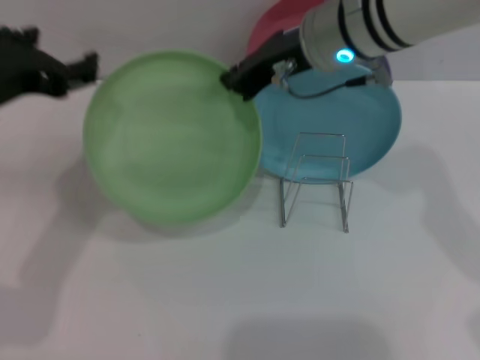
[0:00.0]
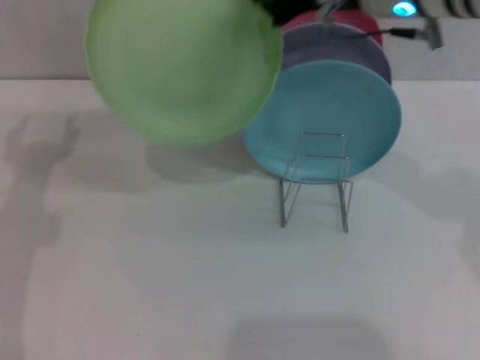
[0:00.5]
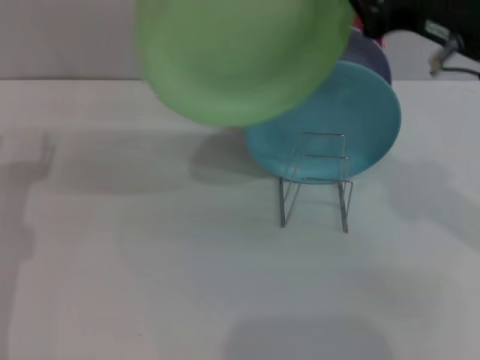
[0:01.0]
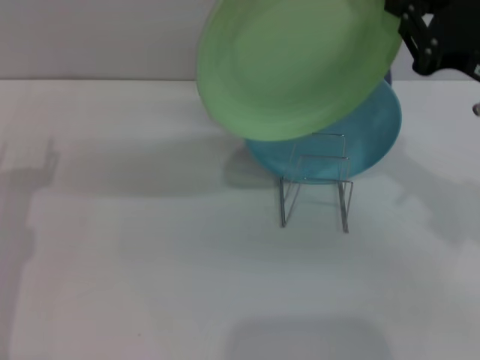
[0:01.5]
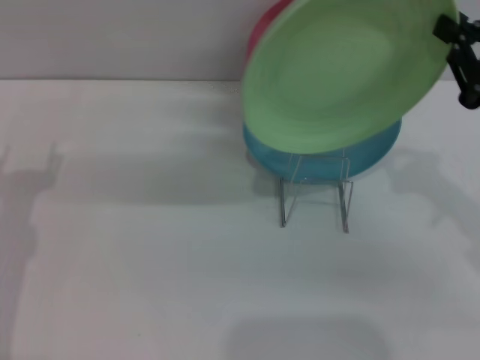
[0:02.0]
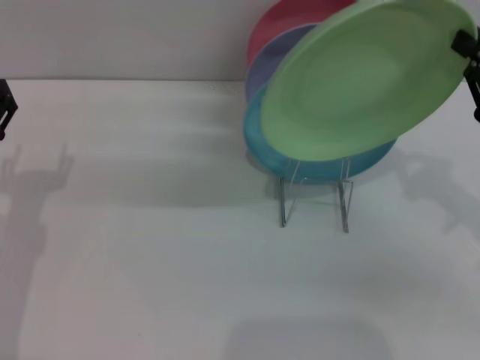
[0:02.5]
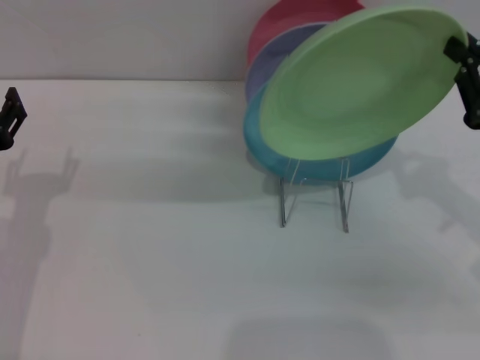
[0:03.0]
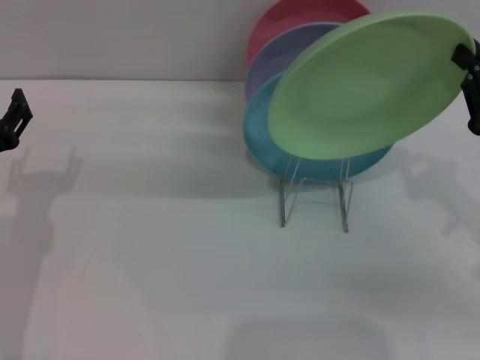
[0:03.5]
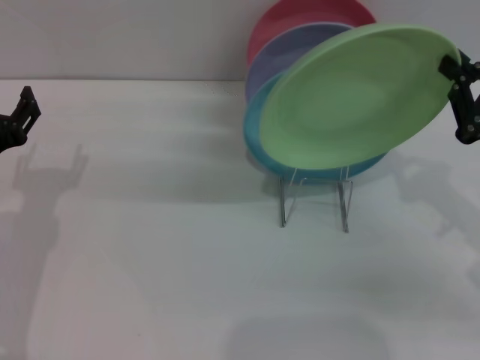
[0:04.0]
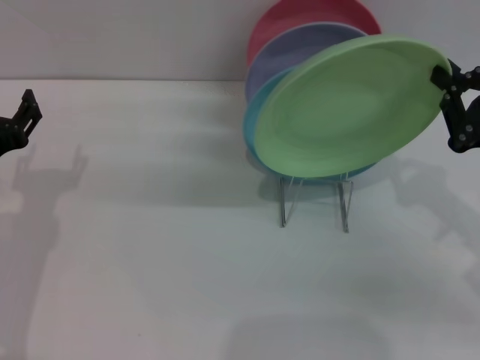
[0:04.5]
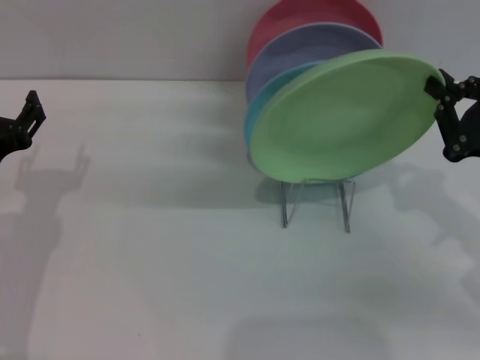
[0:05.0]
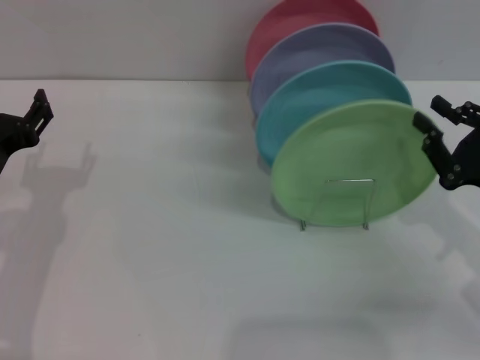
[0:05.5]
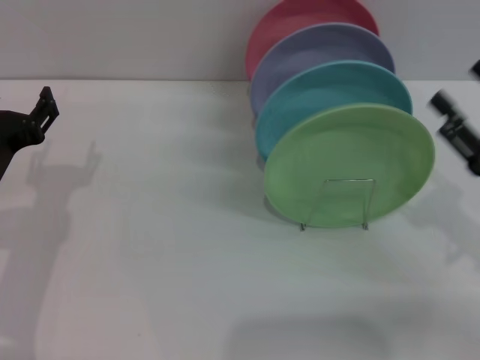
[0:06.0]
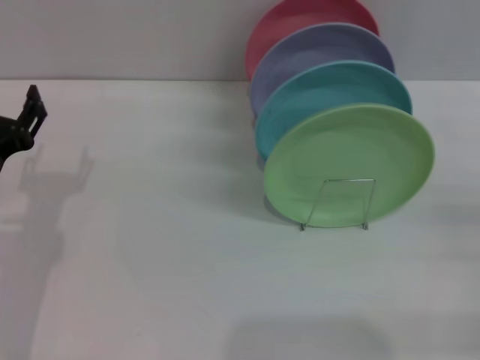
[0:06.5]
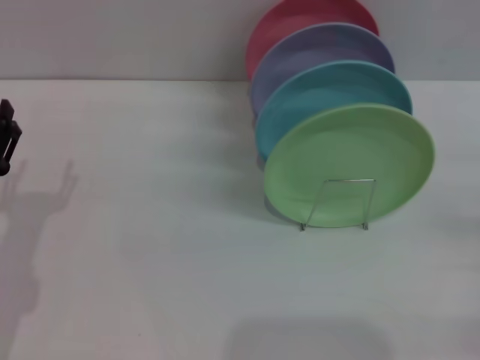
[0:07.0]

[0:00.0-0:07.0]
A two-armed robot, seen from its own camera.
Task of the whole recording: Grip the plate with one hand, pass it to the other, then set it on the shelf.
Step, 0:00.5 to 0:05.5: Place the plate on the shelf with the right gripper.
0:00.0 to 0:02.0: The left gripper moves downward and to the left, about 15 cm, while the right gripper shifts about 25 cm to the right and backward.
0:02.0 to 0:05.0: There are only small adjustments of the grippers.
0:05.0 to 0:07.0: The left gripper ends up some 5 cm from where it was. The right gripper goes roughly 10 cm to the right, backward and downward, and opens.

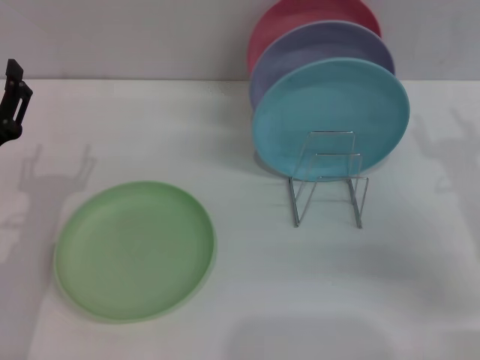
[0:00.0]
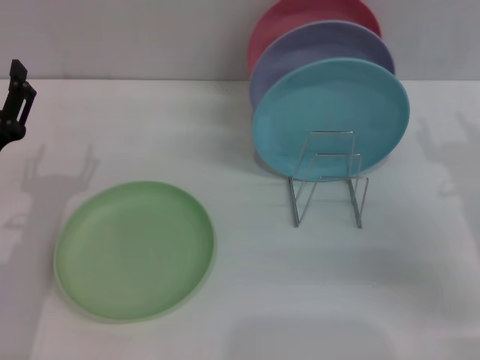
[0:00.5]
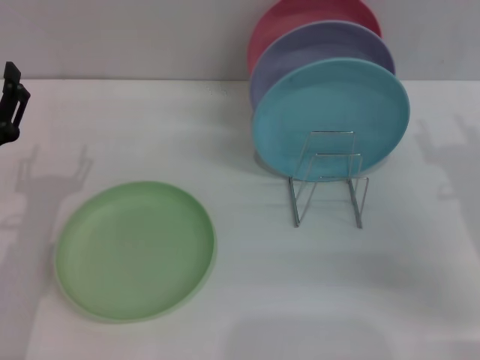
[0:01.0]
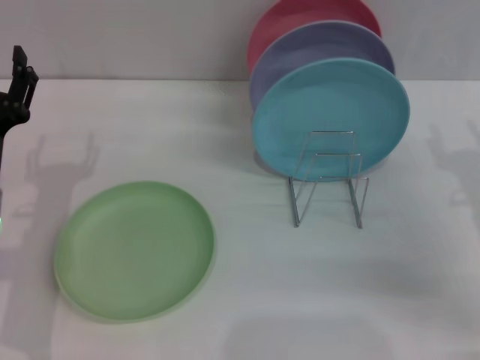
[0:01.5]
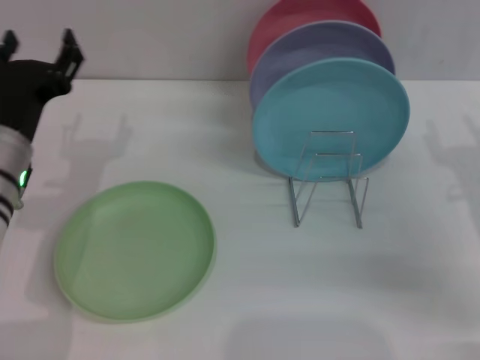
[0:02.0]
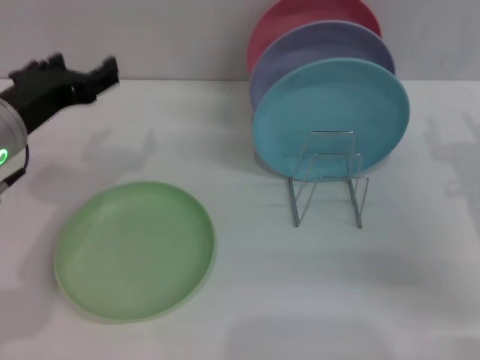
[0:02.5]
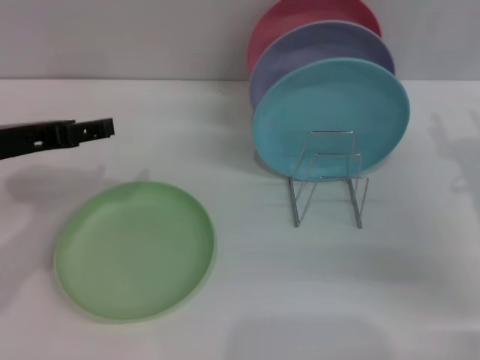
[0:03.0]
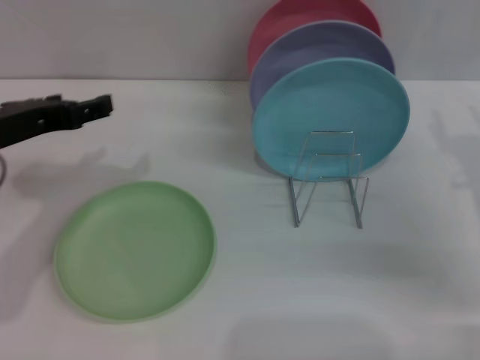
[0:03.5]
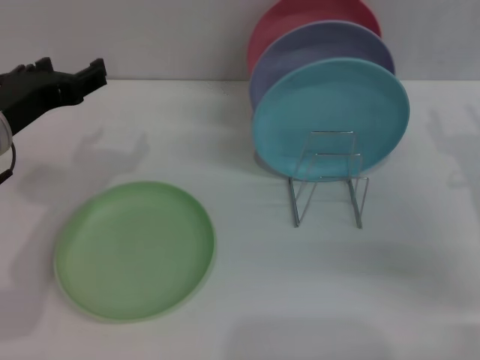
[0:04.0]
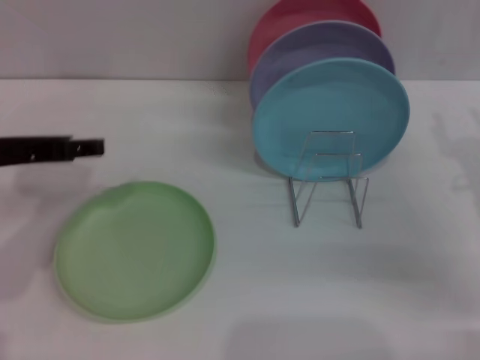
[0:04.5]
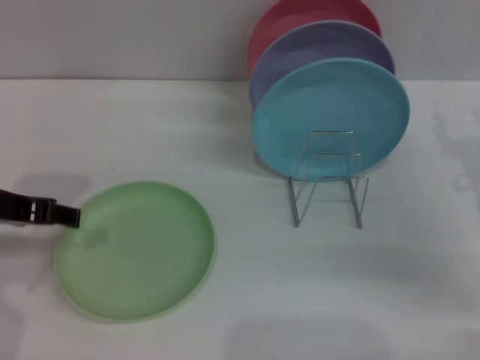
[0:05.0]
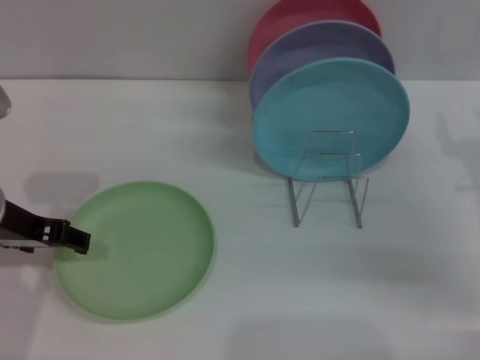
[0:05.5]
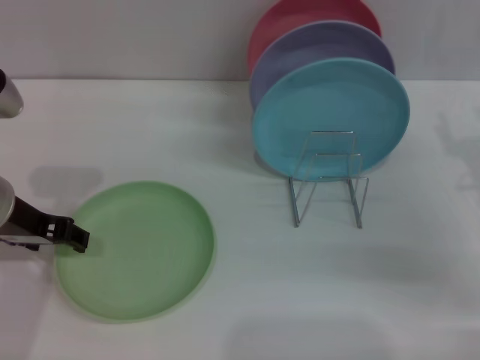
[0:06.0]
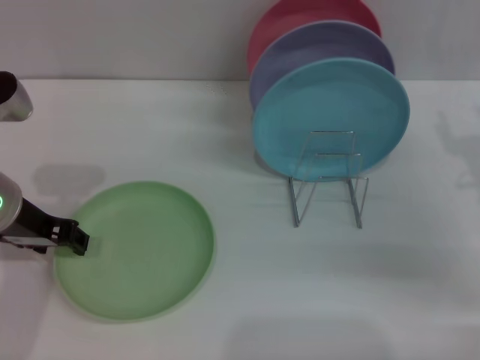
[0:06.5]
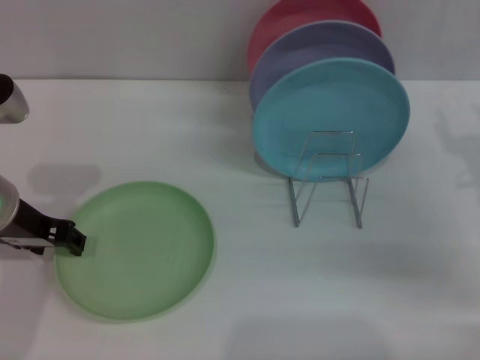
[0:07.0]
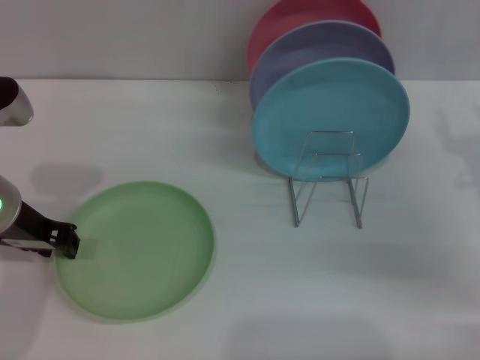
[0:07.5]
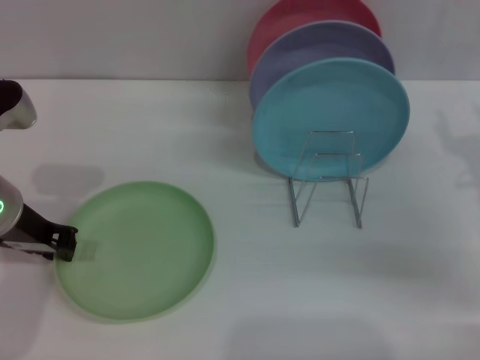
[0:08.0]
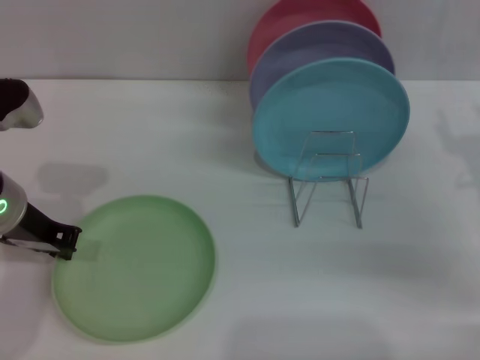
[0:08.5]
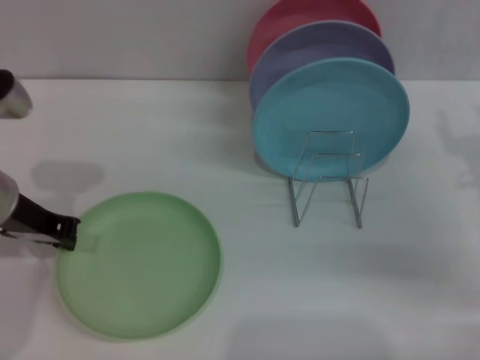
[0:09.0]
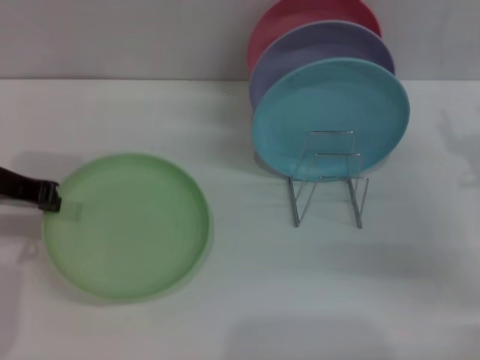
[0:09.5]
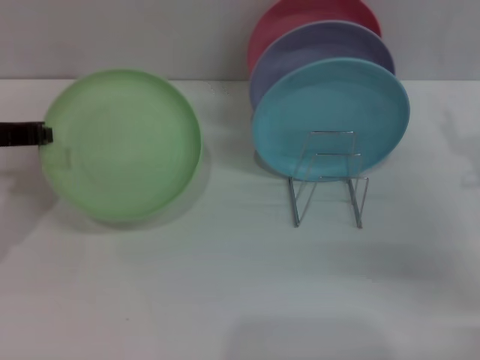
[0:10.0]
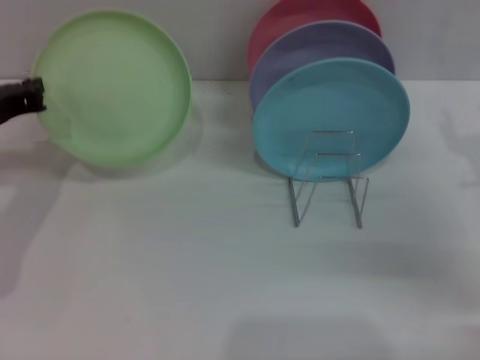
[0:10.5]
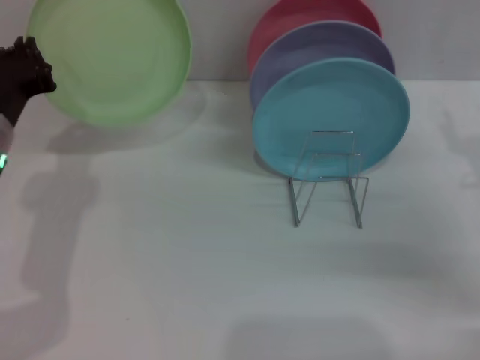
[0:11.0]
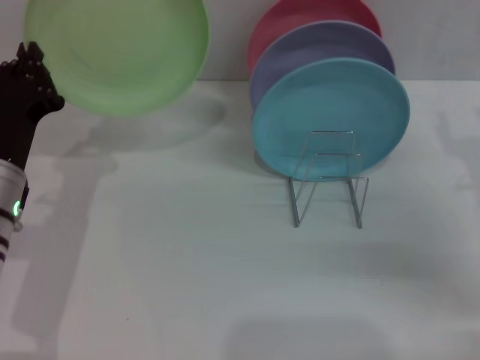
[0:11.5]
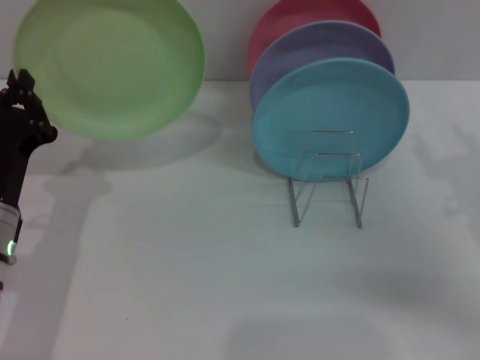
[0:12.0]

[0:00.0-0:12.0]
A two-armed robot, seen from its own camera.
Task of the whole recording: Grip the plate with one hand, pass it to the other, then set it on the shelf.
Step, 0:00.0 to 0:10.0: Pick up the plate with the left gripper.
0:00.0 to 0:02.0: The left gripper moves roughly 5 cm.
0:02.0 to 0:04.0: The left gripper is displaced upward by some 5 cm.
0:06.0 to 0:08.0: The left gripper closes its fingers.
0:08.0 to 0:10.0: The left gripper is displaced to the left by roughly 5 cm.
0:10.0 to 0:12.0: The left gripper shifts some 15 cm downward, backward and to the right.

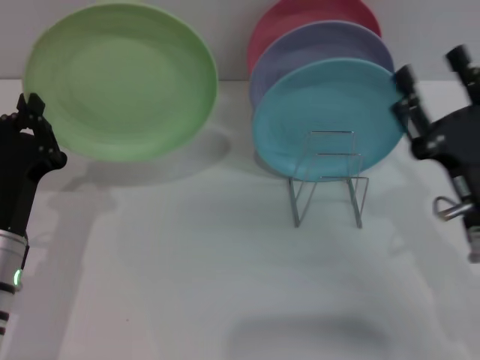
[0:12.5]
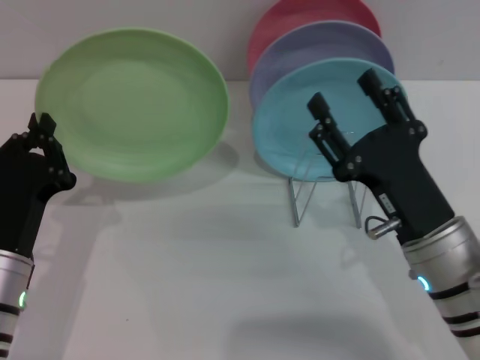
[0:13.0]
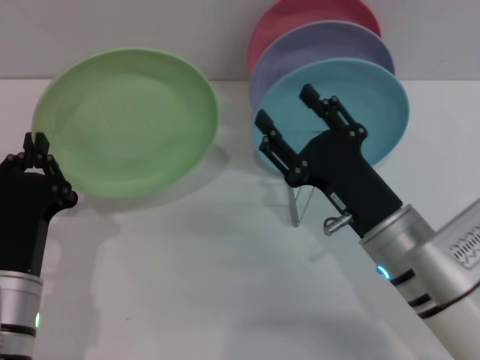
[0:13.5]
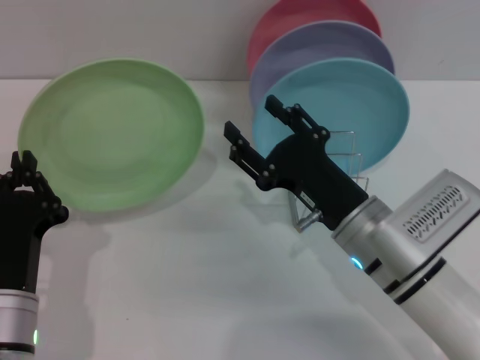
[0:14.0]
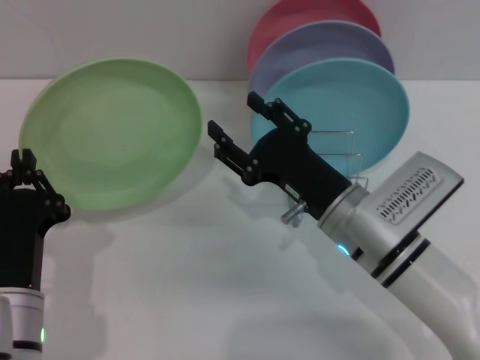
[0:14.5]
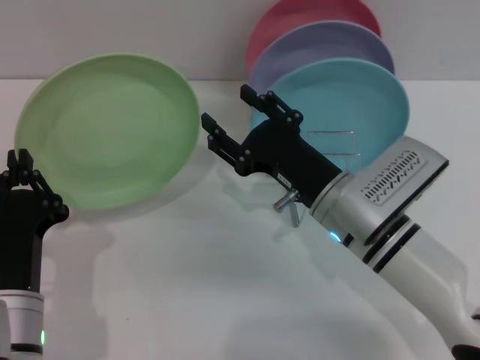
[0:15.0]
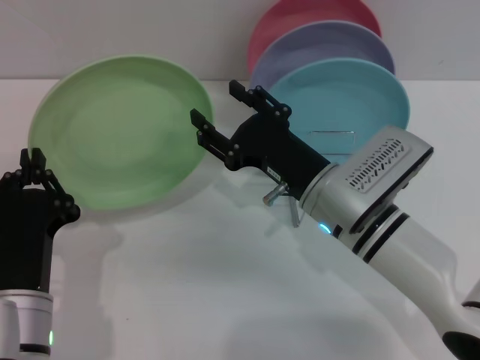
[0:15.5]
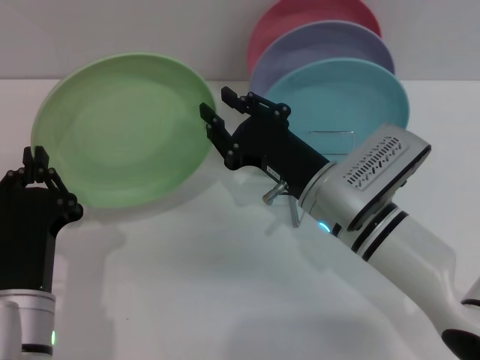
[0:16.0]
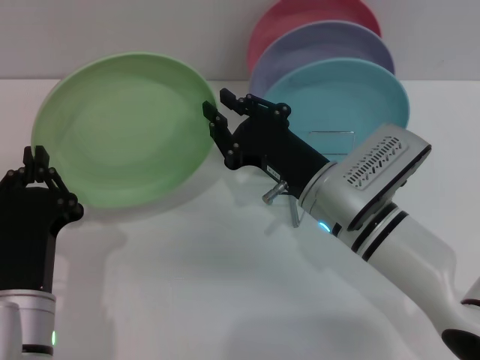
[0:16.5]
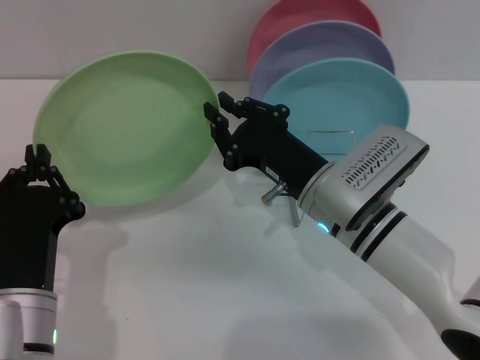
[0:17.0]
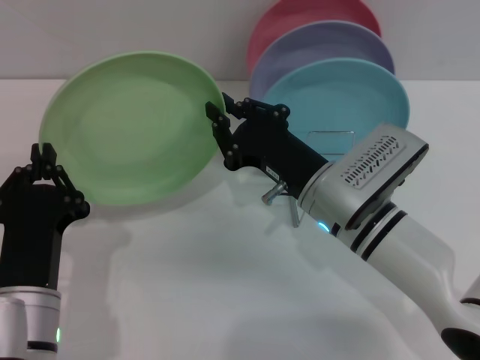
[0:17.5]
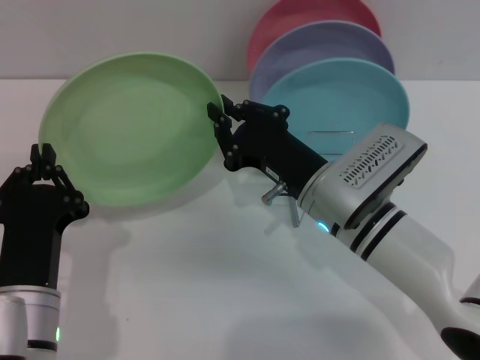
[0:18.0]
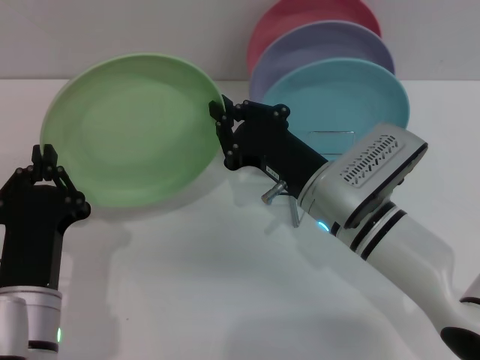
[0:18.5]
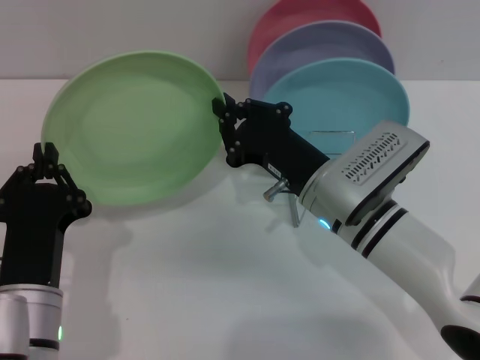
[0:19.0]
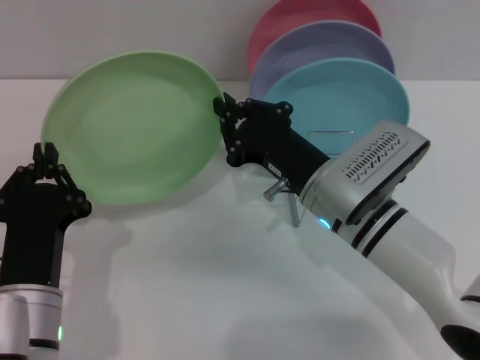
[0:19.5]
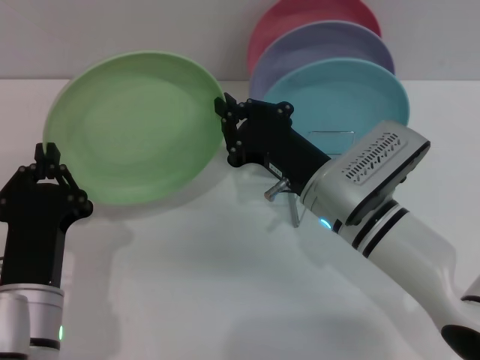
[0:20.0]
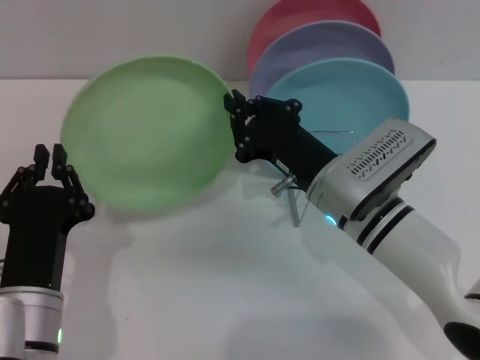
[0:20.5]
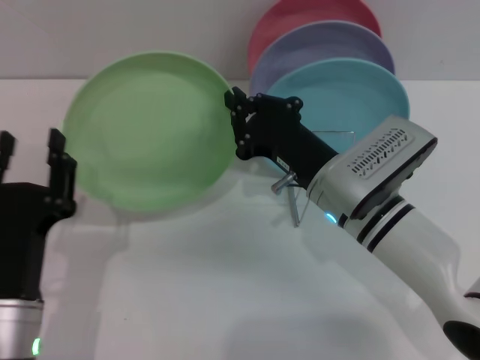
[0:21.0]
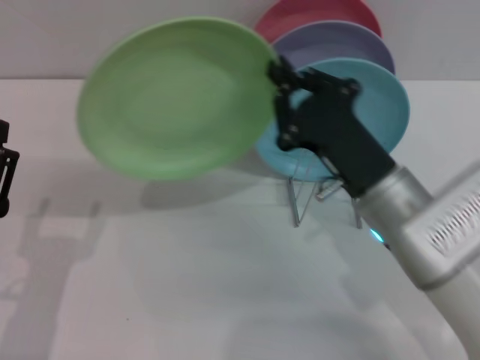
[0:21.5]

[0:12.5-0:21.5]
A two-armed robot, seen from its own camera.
Task of the whole recording: Grip the plate with one hand, pass it to the other, then set it on the shelf.
Step, 0:12.5 to 0:20.5: Pass the plate from the left gripper to the right gripper.
0:12.5 to 0:14.5: The right gripper goes about 10 cm to the left. The left gripper is displaced backward by roughly 5 cm.
0:14.5 to 0:17.0: The right gripper closes up.
0:17.0 to 0:19.5: The two grippers keep their place.
0:19.5 to 0:21.5: The left gripper travels to the left by roughly 5 cm, and opens its fingers. The right gripper ends up about 5 cm from where it was.
